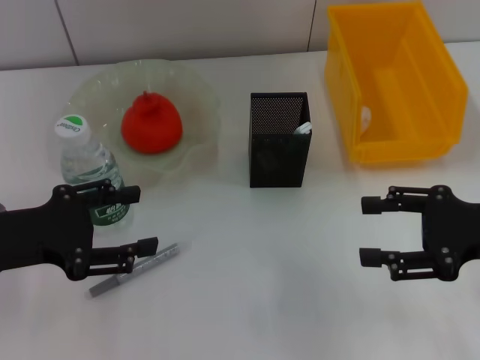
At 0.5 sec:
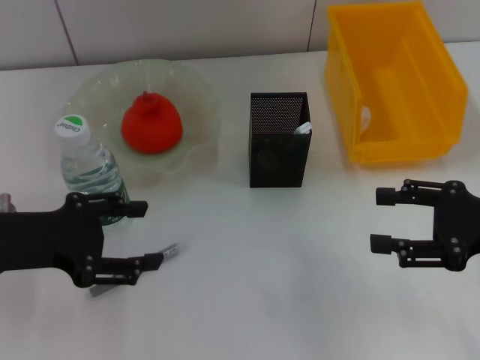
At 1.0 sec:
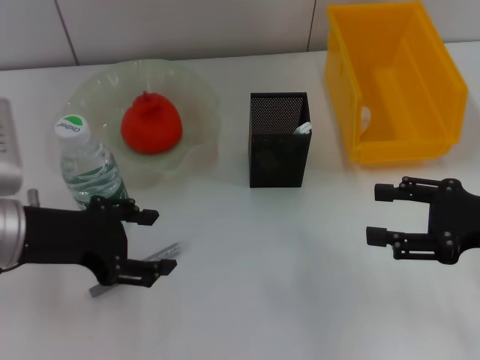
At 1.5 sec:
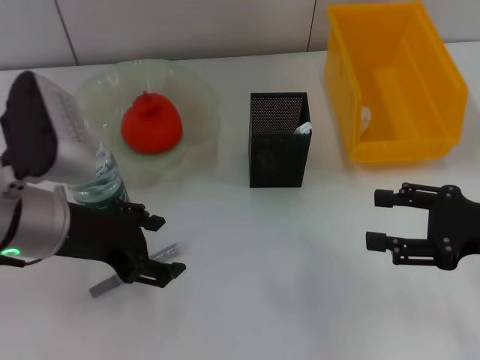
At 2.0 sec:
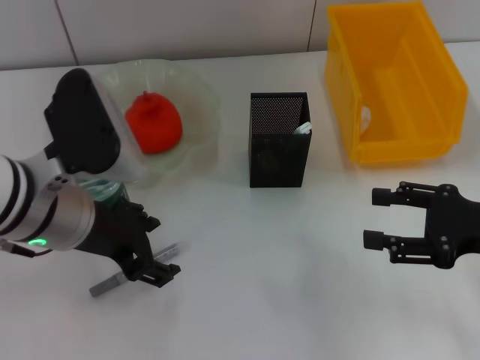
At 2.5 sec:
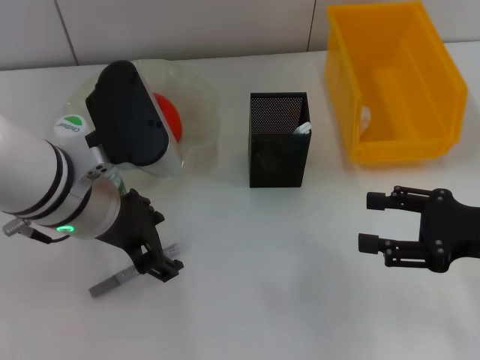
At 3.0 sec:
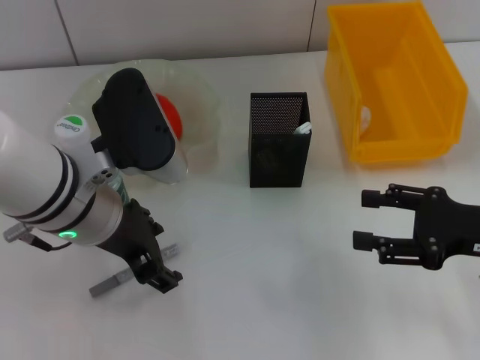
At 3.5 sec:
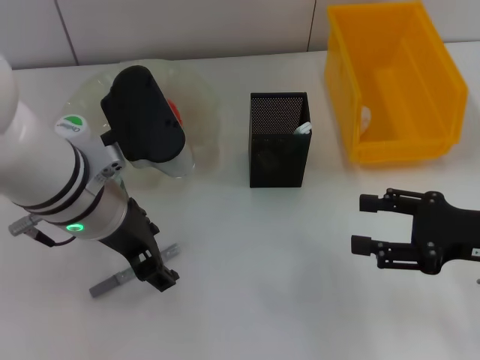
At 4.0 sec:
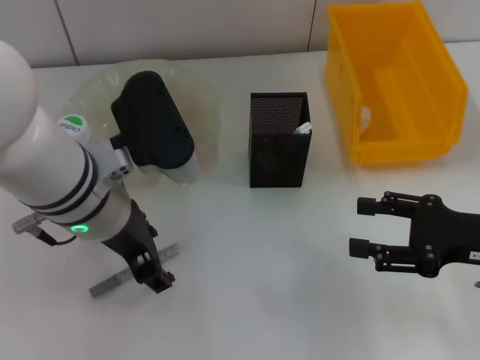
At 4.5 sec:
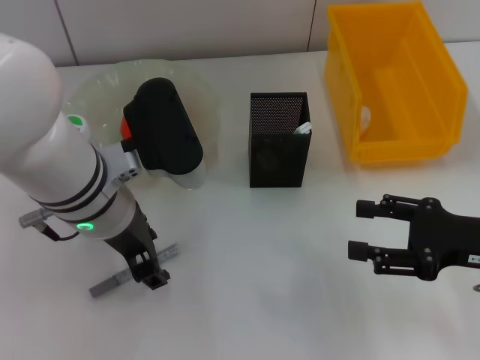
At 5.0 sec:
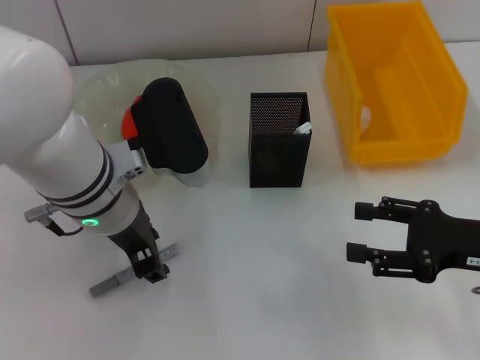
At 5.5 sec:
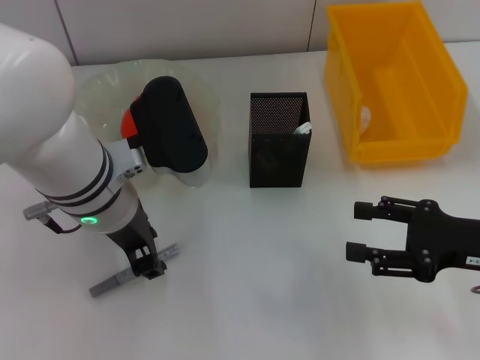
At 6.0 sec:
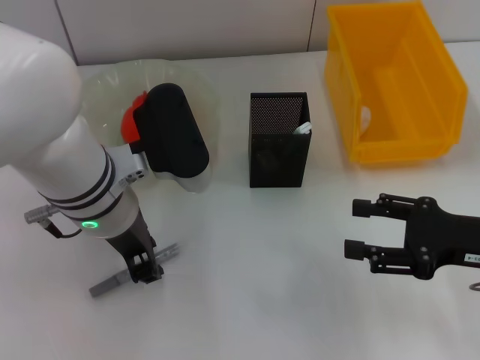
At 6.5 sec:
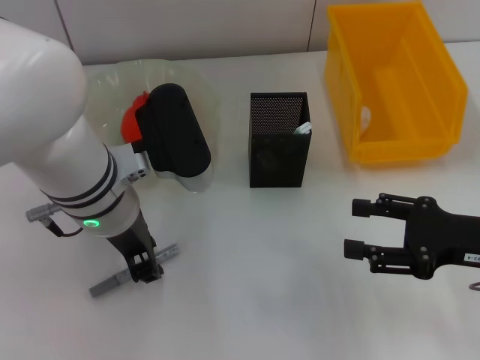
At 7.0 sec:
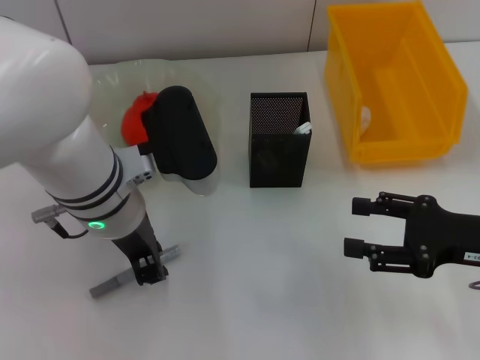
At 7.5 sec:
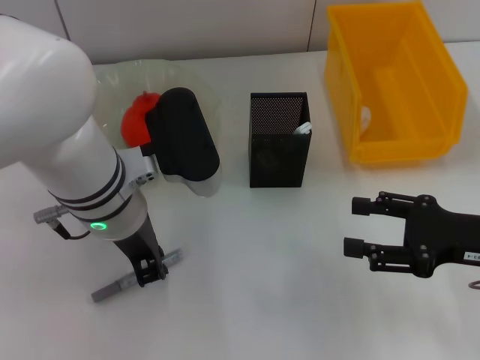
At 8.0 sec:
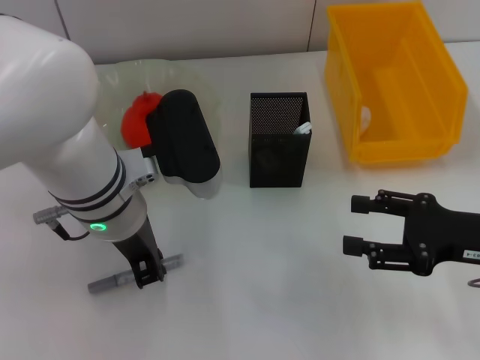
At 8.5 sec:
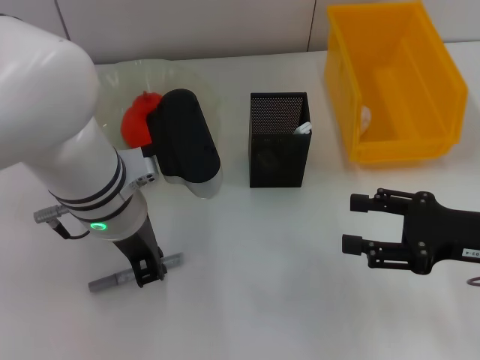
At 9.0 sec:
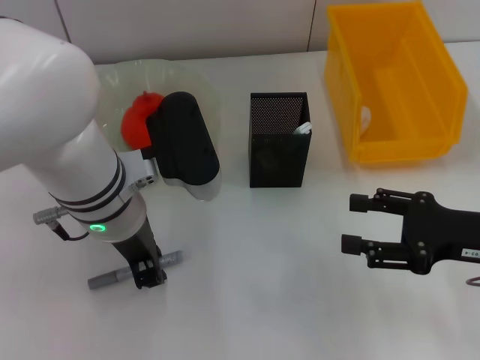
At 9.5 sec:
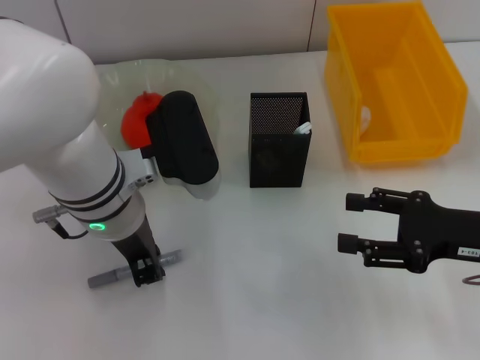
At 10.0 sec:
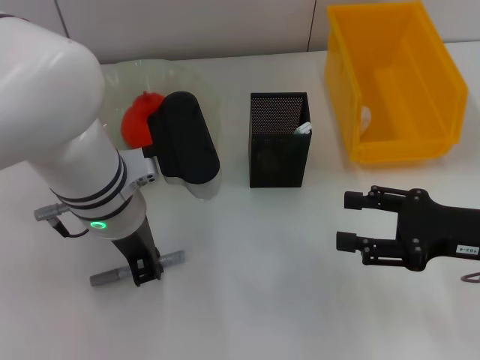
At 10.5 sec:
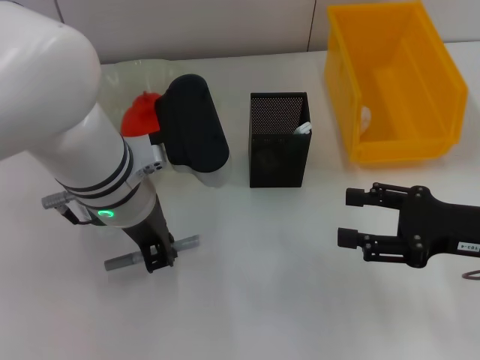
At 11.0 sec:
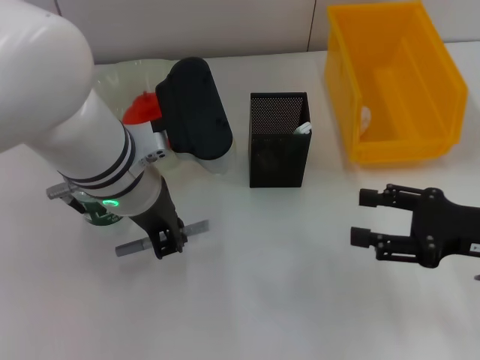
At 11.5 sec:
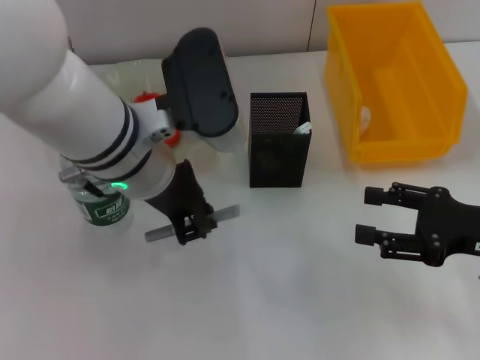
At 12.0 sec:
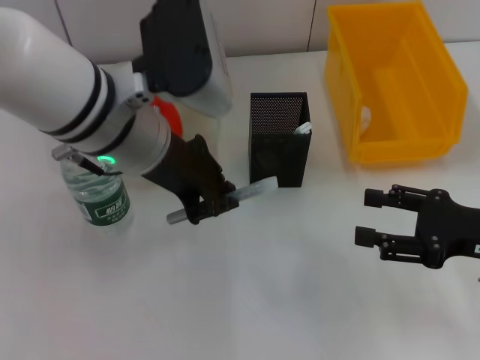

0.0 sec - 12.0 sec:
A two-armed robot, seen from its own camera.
Step, 0.0 sec - 10.0 sec: Grab the gray glue with the left hand.
0.0 sec - 2.0 sec: The left gripper is displaced to the right by roughly 10 cm.
2.0 sec - 4.0 sec: There are only small adjustments of the grippers.
4.0 sec - 6.0 sec: The left gripper closes.
6.0 sec - 10.0 sec: Both grippers stay put.
10.0 sec - 12.0 sec: The left gripper travels upward by roughly 5 cm.

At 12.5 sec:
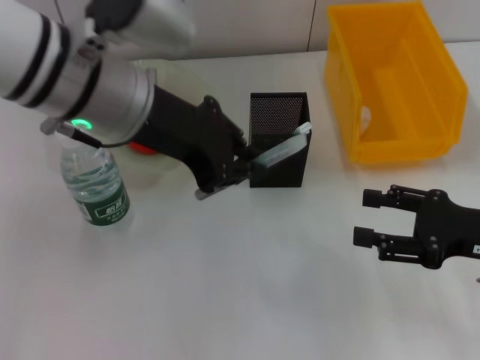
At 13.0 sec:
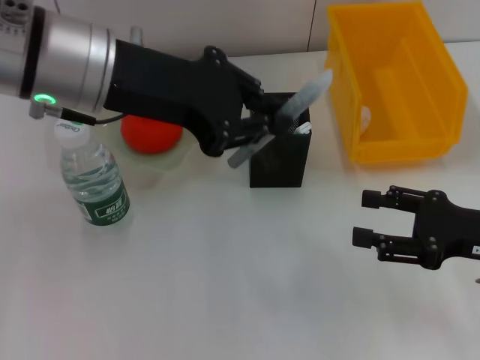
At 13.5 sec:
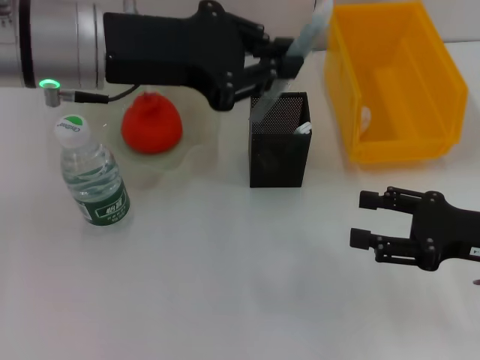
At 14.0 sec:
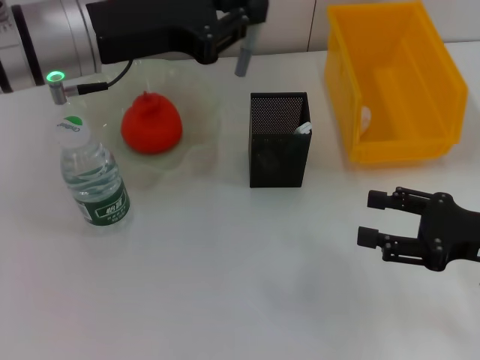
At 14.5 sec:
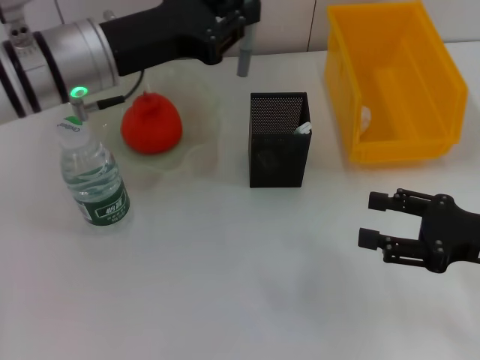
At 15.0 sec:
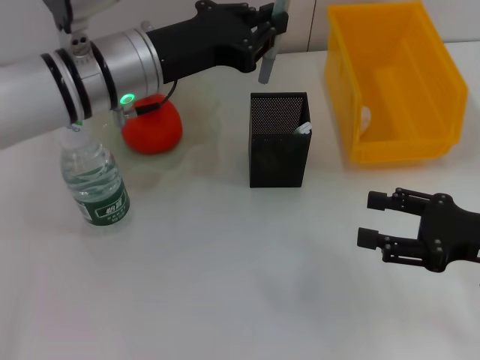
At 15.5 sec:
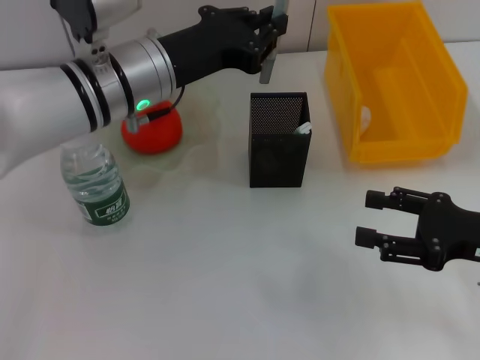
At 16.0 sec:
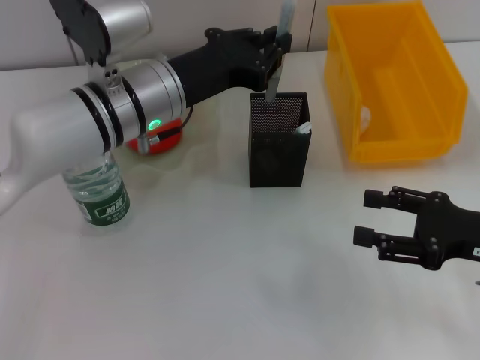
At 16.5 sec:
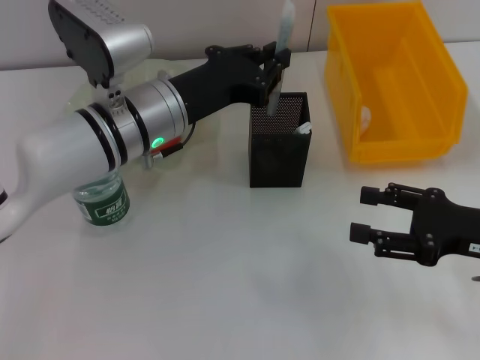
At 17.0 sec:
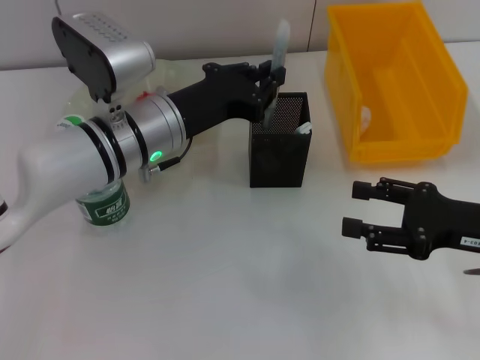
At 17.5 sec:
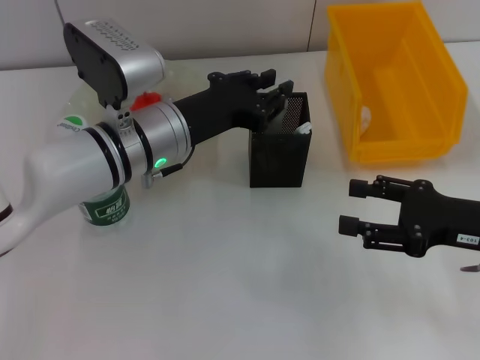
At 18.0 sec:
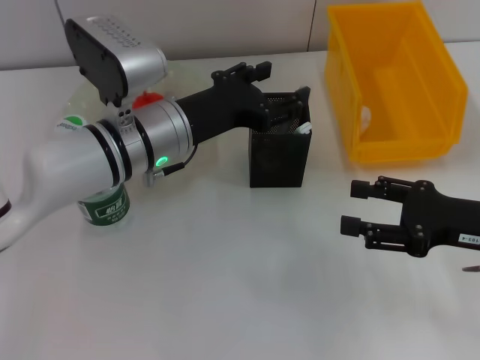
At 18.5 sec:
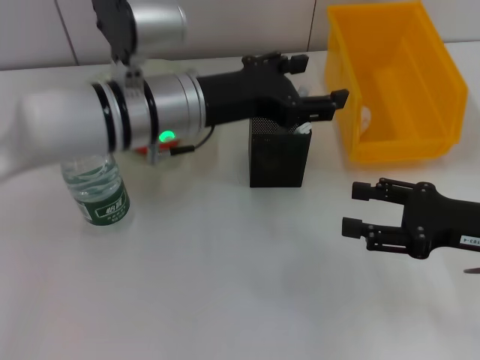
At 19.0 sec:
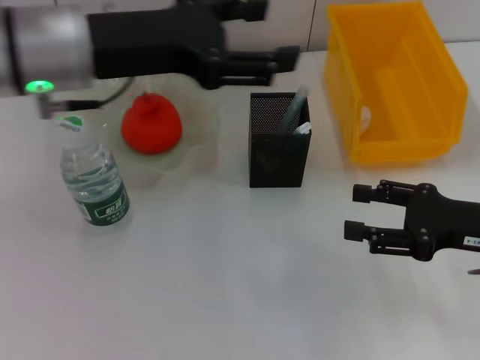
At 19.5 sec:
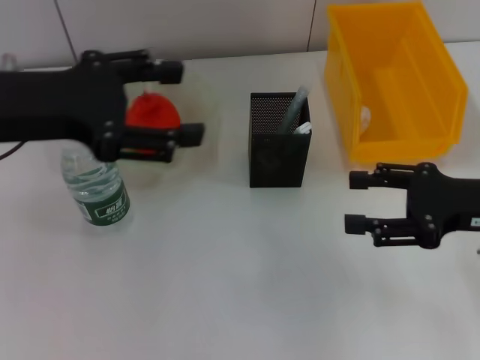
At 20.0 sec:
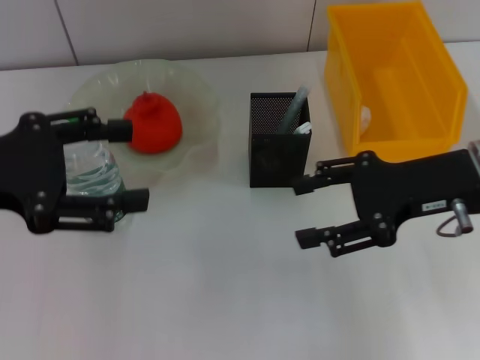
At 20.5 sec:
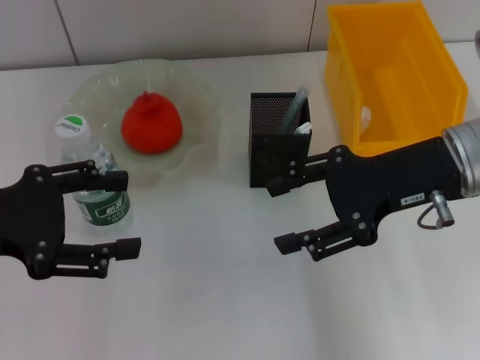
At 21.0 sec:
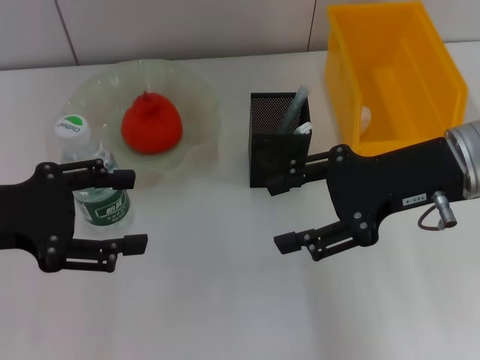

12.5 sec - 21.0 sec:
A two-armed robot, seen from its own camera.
Step, 12.5 sec - 17.5 sec: Place the gray glue into the pen holder with the left hand.
12.5 sec - 14.5 sec: The left gripper shifts some 5 cm downward.
14.5 sec - 16.5 sec: The left gripper travels downward and to the right by roughly 10 cm.
16.5 sec - 19.0 sec: The left gripper goes about 10 cm upward and to the left, and opens its fingers.
19.0 sec - 21.0 sec: The left gripper heads to the left, backward and downward, covering some 15 cm. Meanwhile the right gripper heads upward, to the left and forward, covering roughly 15 cm.

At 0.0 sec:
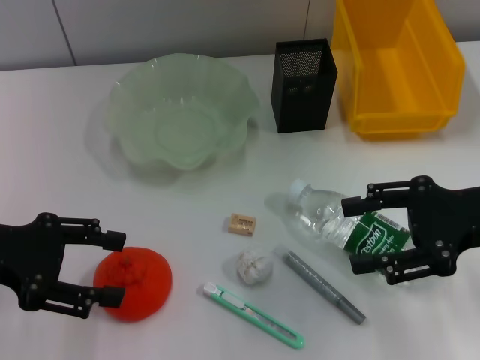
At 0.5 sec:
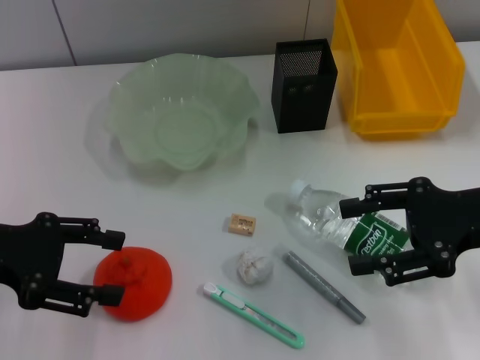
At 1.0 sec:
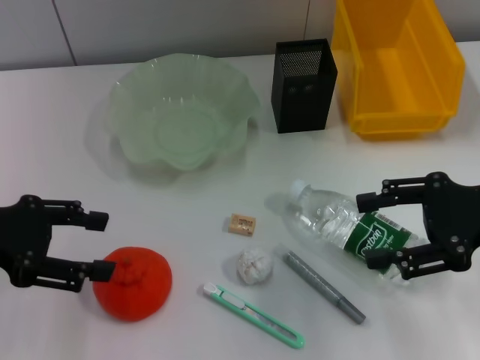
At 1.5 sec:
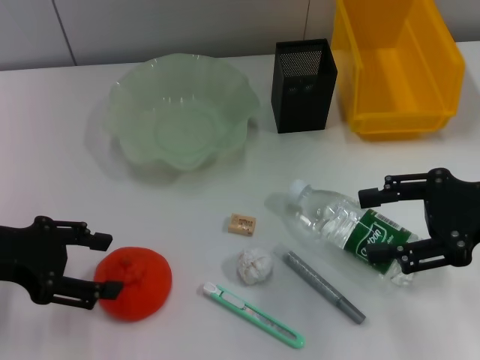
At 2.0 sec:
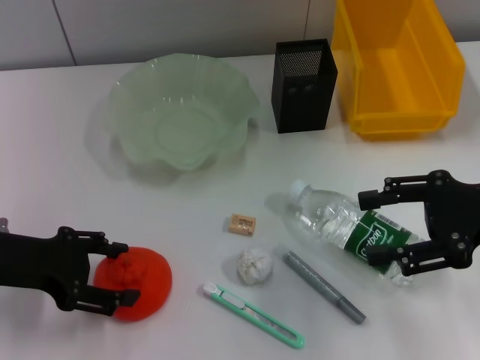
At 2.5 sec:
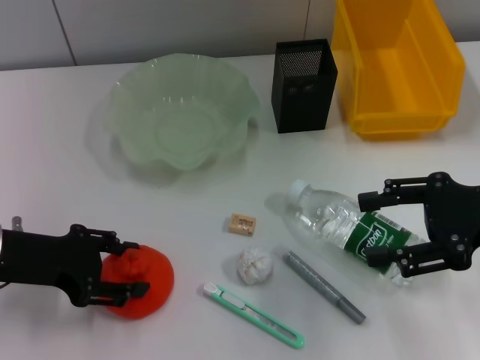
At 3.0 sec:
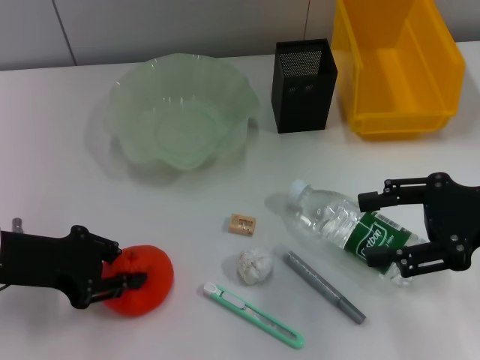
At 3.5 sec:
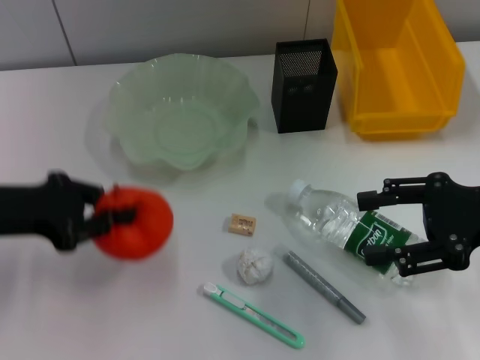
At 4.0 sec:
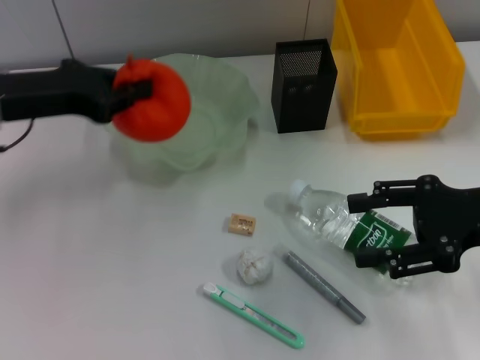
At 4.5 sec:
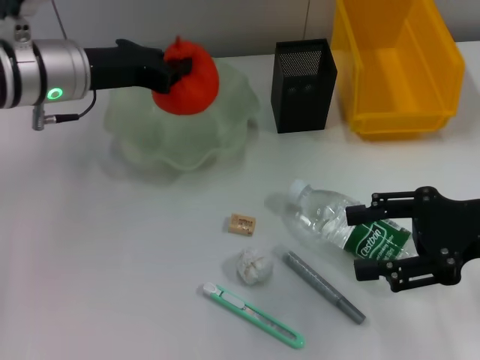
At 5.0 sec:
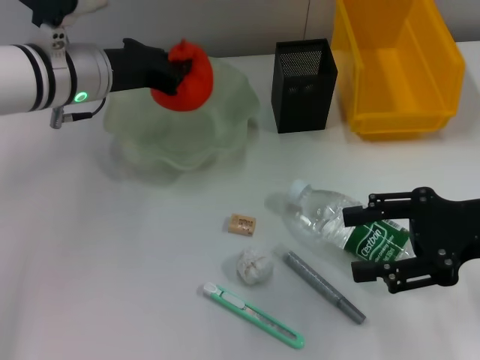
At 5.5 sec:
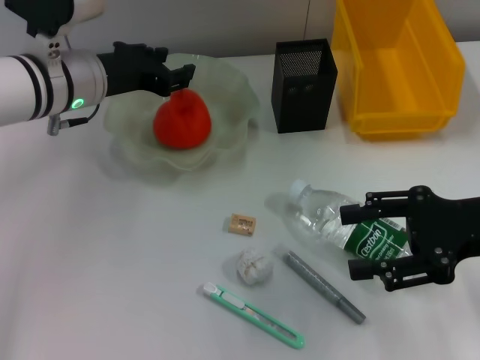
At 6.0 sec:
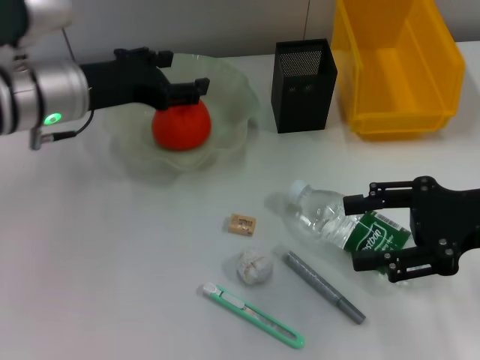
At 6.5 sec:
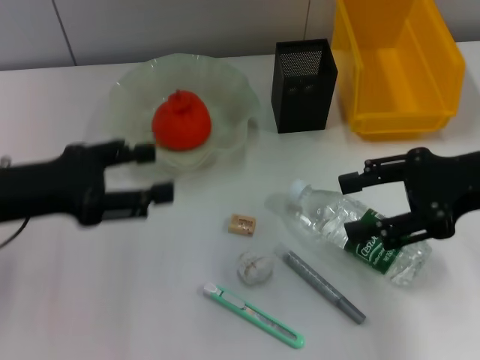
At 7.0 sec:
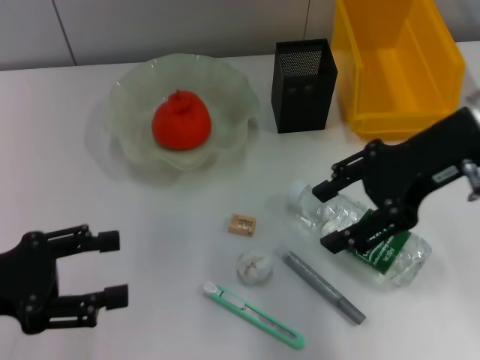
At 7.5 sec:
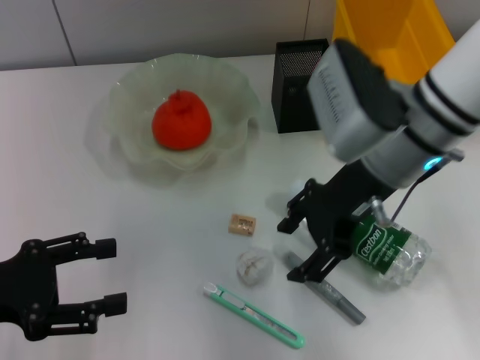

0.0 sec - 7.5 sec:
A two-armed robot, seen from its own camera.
Step, 0.0 sec - 3.0 sec: Grab the orange with the left hand.
Step, 3.5 sec - 6.0 sec: Place the orange into the fruit bowl with the left hand.
0.0 sec - 2.0 sec: The grippers stay close to where they were, moving slightly.
2.0 sec - 4.0 sec: The left gripper shifts approximately 10 cm forward and upward, and closes.
4.0 sec - 5.5 sec: The left gripper heads to the right and forward, covering roughly 10 cm.
5.5 sec - 7.5 sec: The right gripper is displaced to the left and forward by approximately 15 cm; the left gripper moves backward and to the left, about 25 cm, and opens its fingers.
